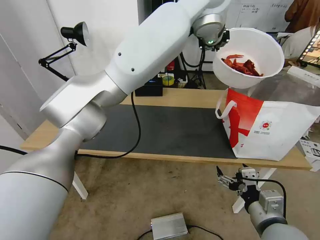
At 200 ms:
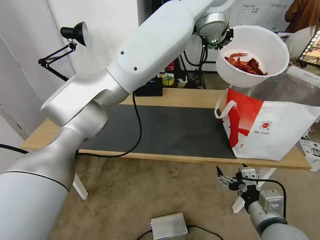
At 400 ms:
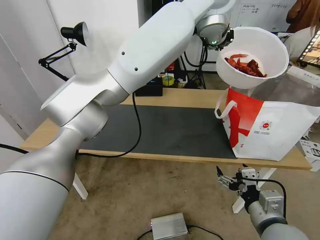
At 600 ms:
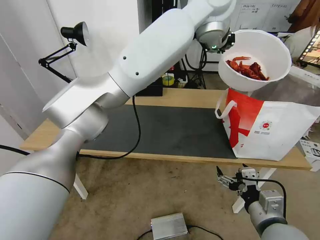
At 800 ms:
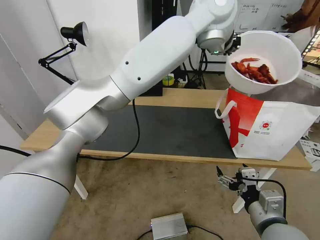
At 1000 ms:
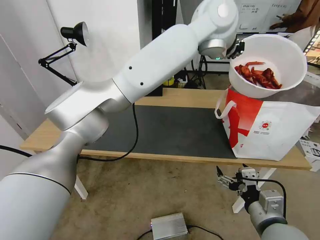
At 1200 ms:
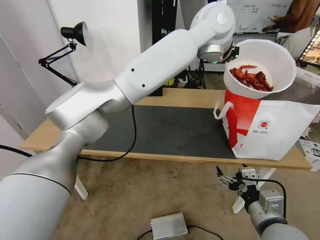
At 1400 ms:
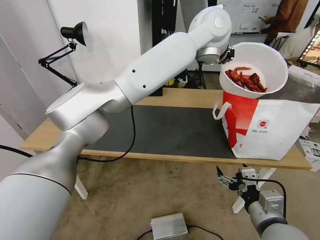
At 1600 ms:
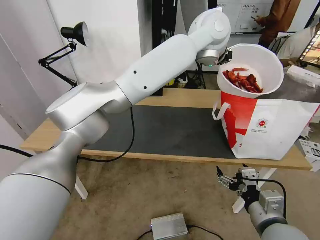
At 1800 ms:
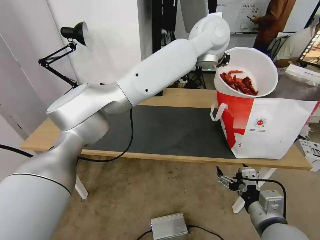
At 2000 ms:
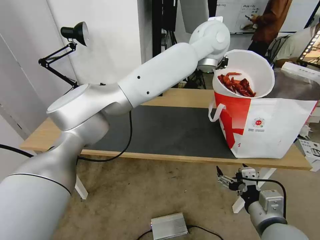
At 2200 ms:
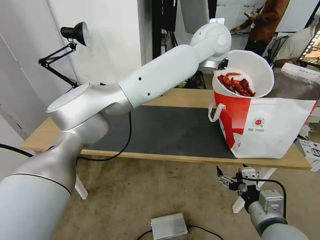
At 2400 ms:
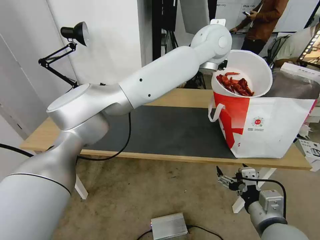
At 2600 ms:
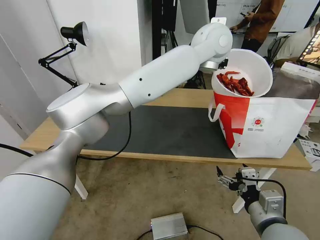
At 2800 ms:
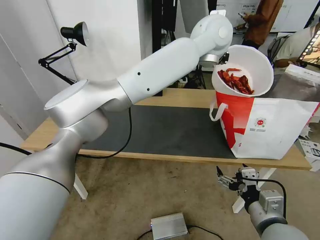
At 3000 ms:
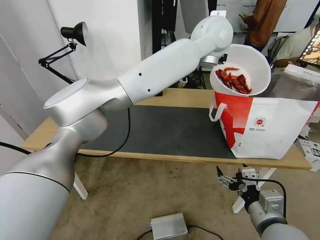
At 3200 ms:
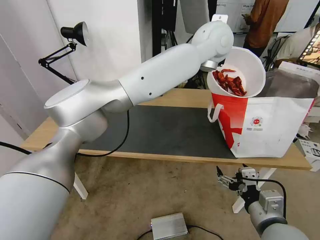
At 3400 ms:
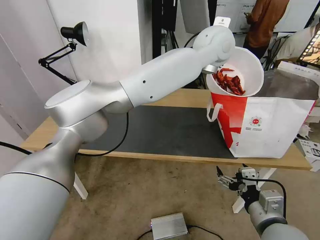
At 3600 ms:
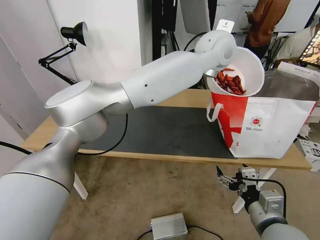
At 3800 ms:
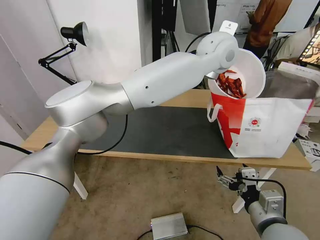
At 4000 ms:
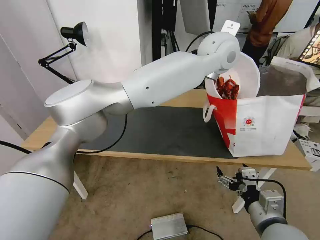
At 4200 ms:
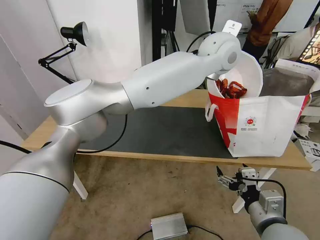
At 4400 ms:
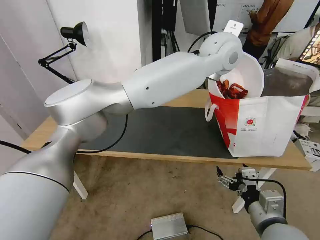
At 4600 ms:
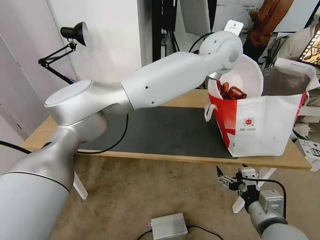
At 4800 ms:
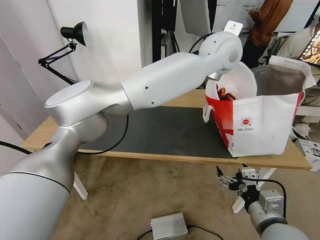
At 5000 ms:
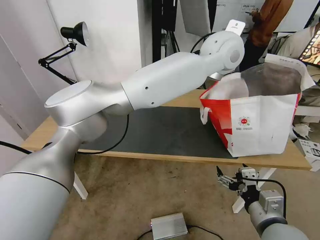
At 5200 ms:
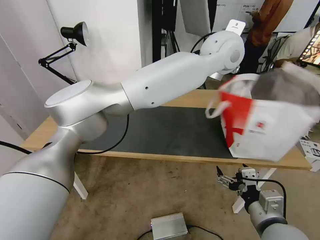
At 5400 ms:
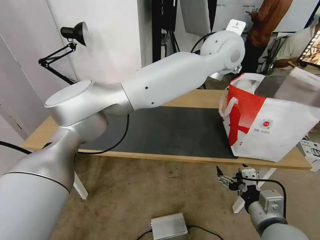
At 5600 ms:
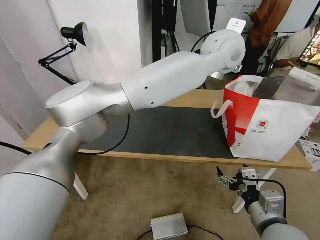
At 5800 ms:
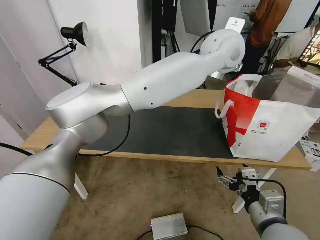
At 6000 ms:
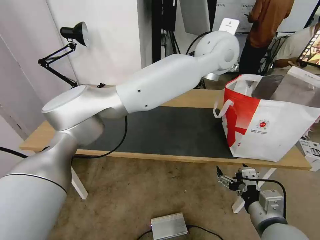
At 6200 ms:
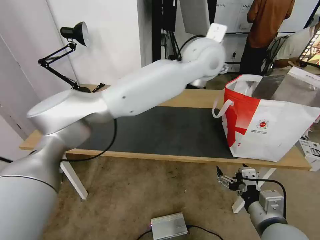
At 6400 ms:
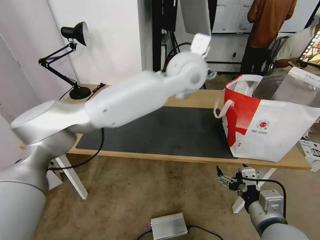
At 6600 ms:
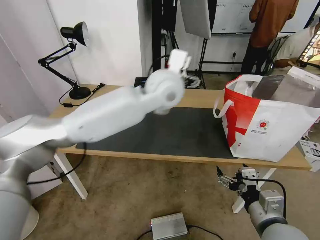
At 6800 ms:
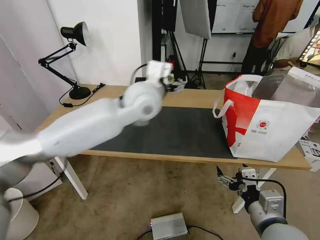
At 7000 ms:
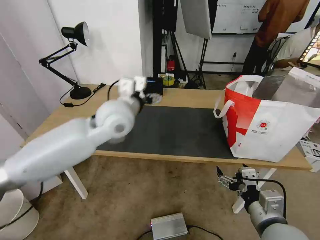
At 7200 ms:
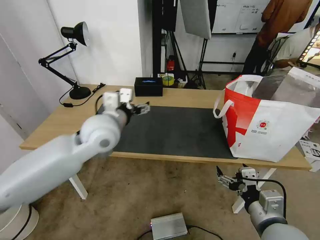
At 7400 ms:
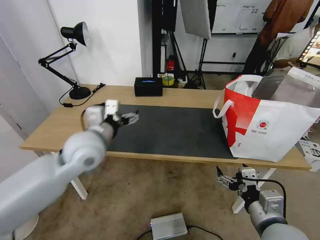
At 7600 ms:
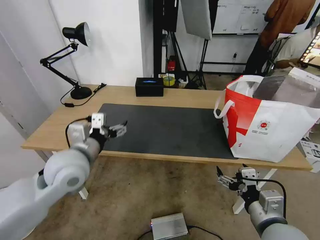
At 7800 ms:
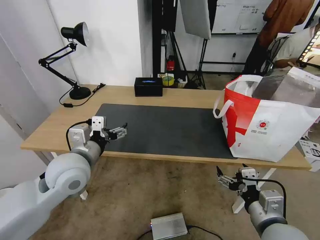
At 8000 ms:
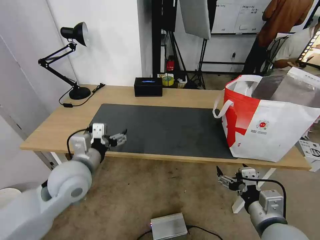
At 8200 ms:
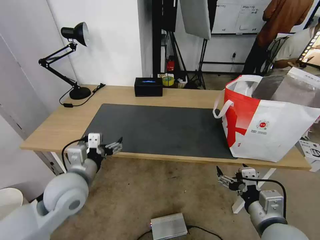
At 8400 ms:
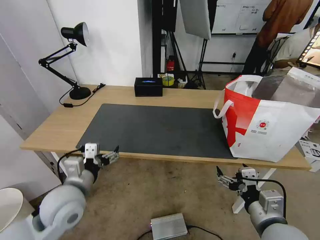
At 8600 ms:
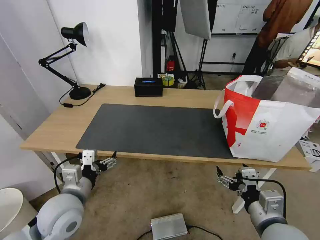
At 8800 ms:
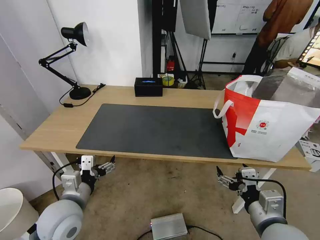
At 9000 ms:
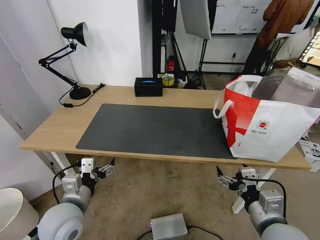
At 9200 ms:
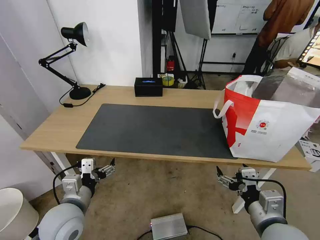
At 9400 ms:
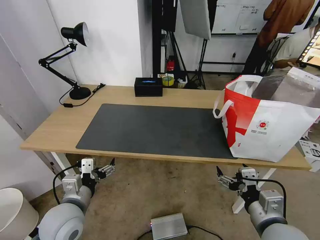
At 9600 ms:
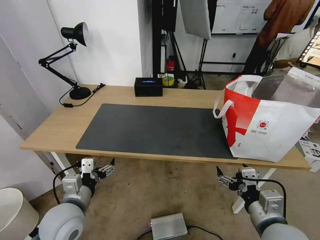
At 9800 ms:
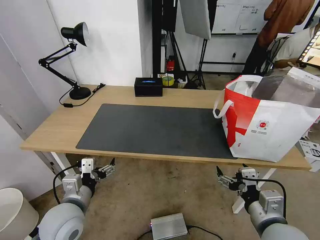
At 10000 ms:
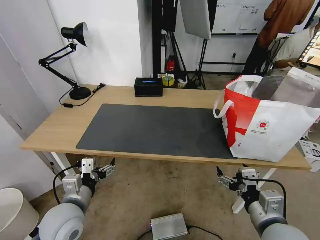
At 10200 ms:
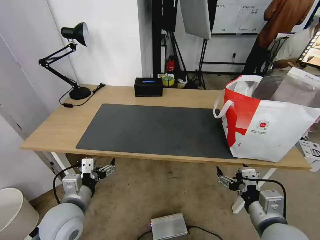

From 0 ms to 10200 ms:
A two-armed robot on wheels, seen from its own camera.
Task of the whole recording: Pick up the trash from the table and place it into the takeout bag.
From 0 ms to 1400 ms: The left gripper heads downward, covering about 5 cm.
From 1400 ms to 3000 ms: There are only small adjustments of the grippers.
From 3000 ms to 4400 ms: There are only small adjustments of the grippers.
From 4400 ms to 5800 ms: The left gripper opens.
From 5800 ms to 7200 ms: The left gripper moves to the left and downward, about 35 cm.
From 7200 ms to 8800 ms: The left gripper travels backward, downward and to the left by approximately 25 cm.
From 8800 ms to 10200 ms: The two grippers keep their place.

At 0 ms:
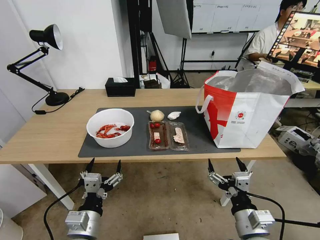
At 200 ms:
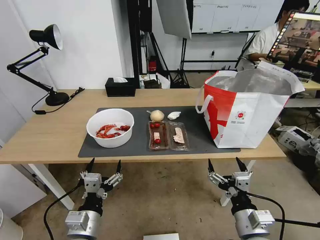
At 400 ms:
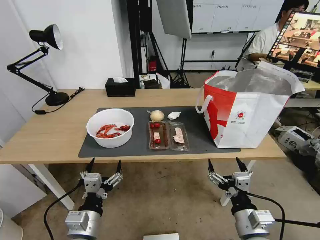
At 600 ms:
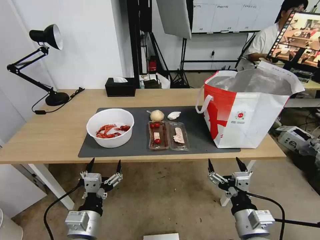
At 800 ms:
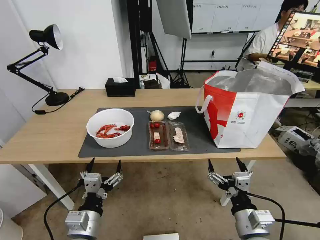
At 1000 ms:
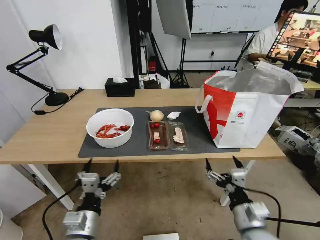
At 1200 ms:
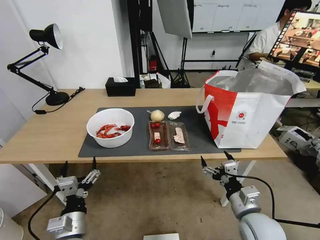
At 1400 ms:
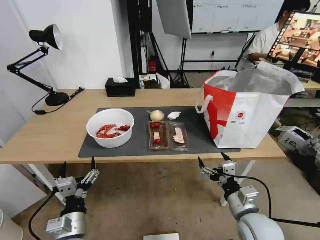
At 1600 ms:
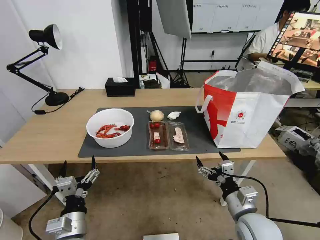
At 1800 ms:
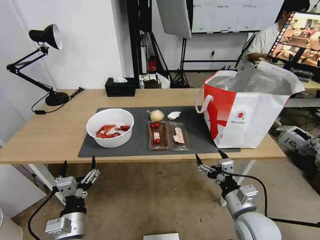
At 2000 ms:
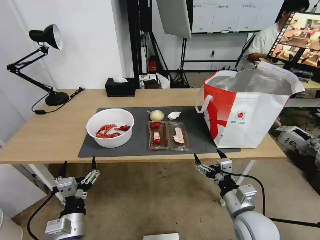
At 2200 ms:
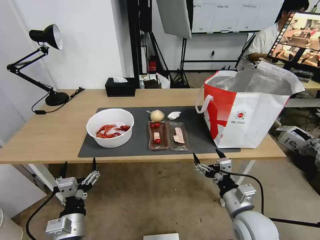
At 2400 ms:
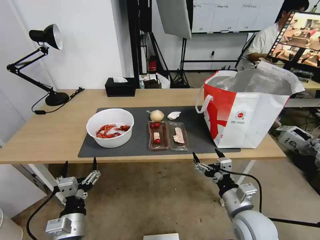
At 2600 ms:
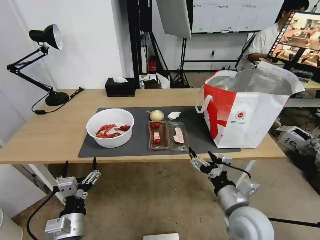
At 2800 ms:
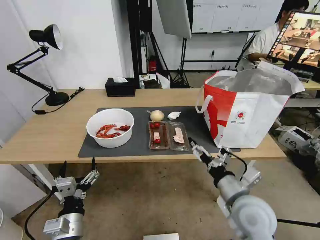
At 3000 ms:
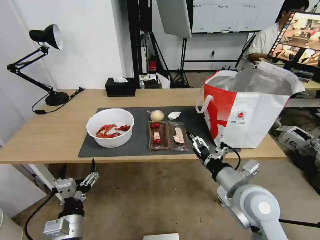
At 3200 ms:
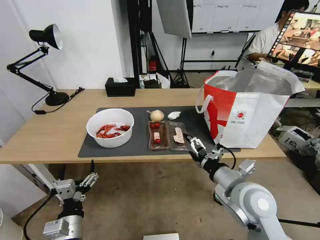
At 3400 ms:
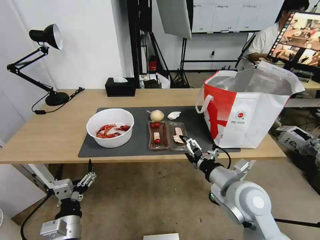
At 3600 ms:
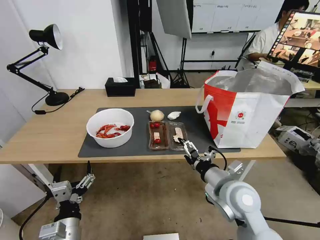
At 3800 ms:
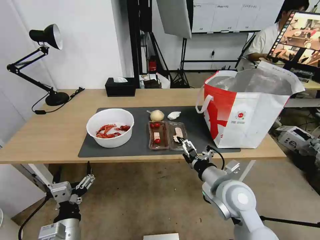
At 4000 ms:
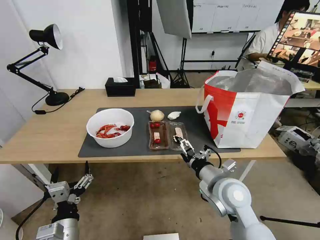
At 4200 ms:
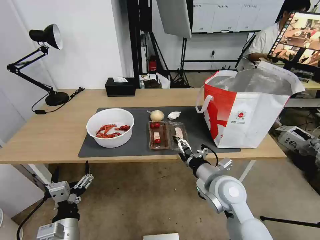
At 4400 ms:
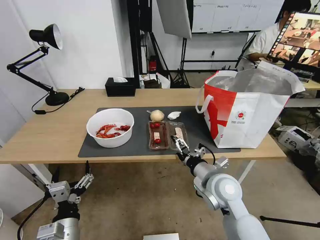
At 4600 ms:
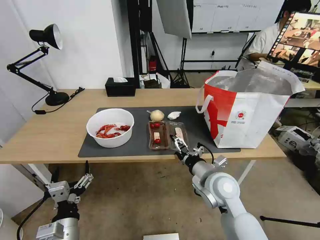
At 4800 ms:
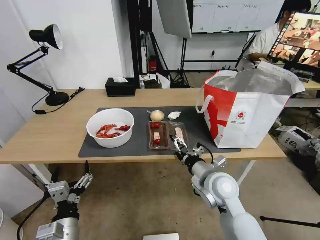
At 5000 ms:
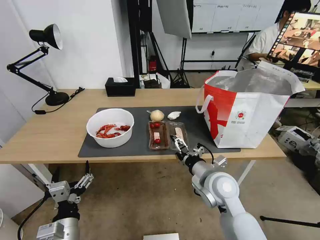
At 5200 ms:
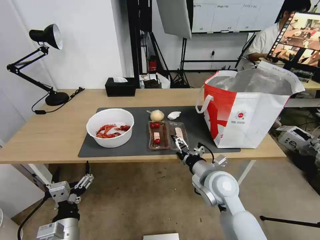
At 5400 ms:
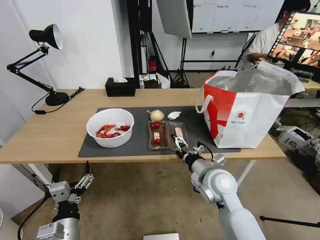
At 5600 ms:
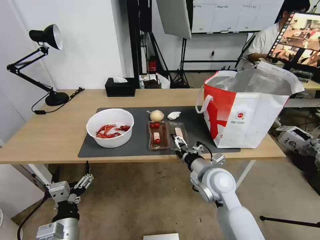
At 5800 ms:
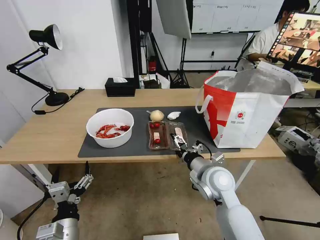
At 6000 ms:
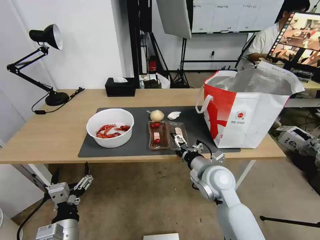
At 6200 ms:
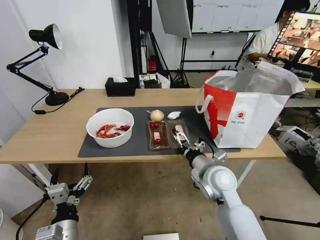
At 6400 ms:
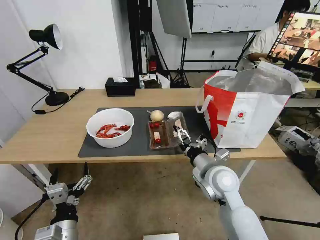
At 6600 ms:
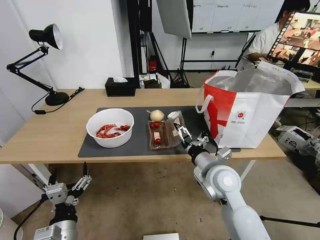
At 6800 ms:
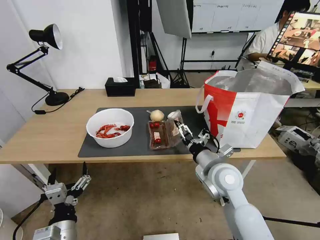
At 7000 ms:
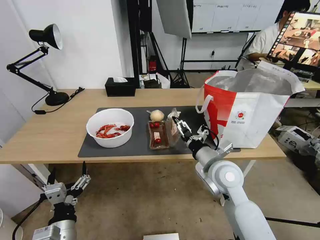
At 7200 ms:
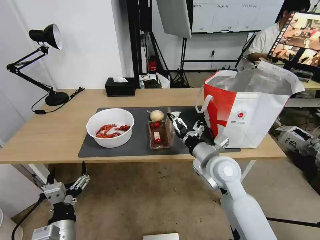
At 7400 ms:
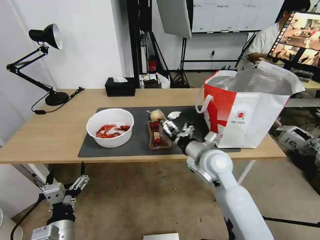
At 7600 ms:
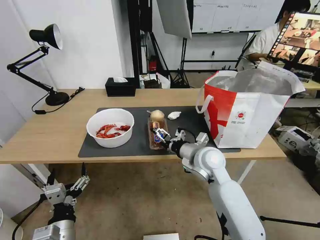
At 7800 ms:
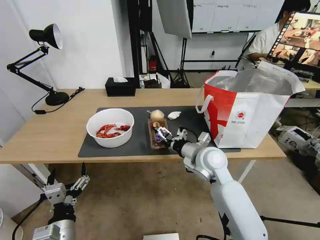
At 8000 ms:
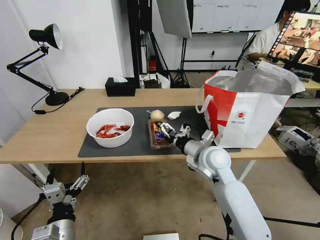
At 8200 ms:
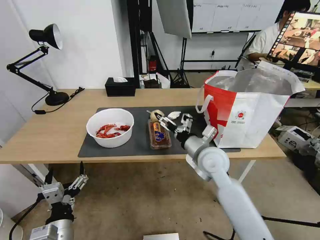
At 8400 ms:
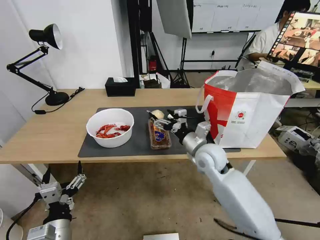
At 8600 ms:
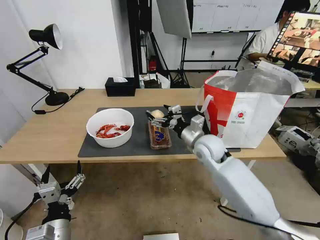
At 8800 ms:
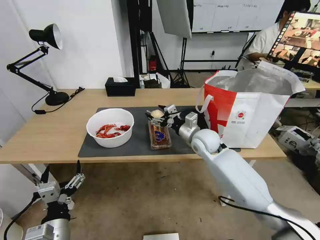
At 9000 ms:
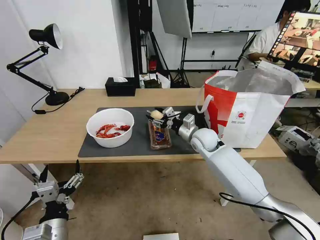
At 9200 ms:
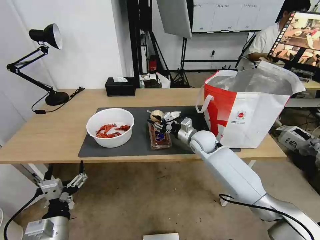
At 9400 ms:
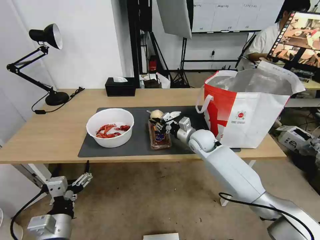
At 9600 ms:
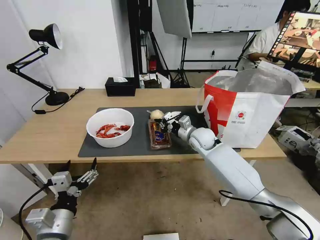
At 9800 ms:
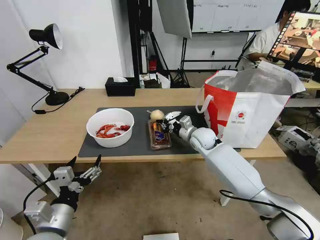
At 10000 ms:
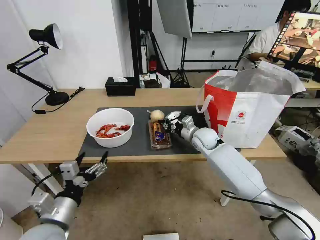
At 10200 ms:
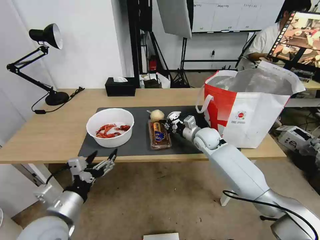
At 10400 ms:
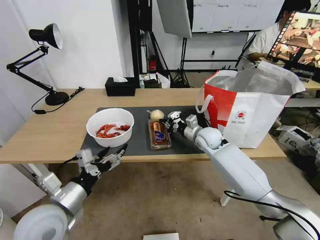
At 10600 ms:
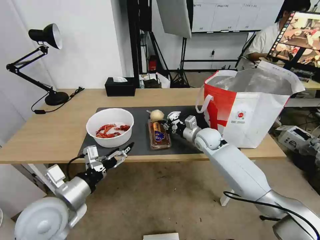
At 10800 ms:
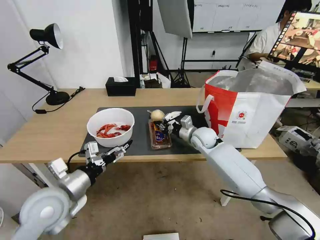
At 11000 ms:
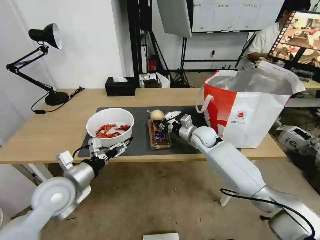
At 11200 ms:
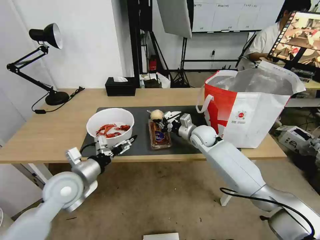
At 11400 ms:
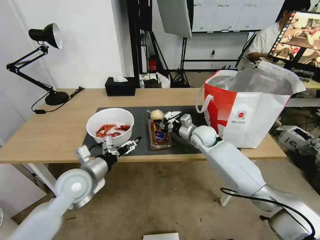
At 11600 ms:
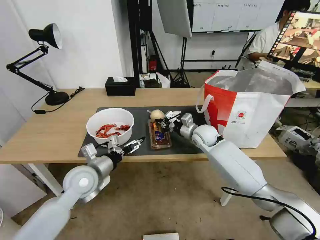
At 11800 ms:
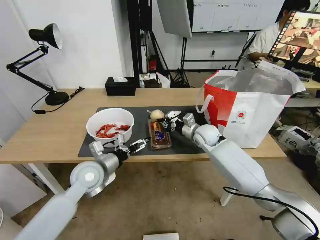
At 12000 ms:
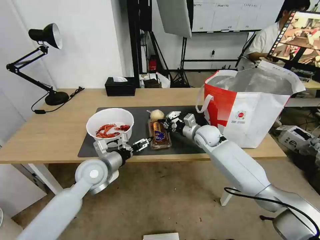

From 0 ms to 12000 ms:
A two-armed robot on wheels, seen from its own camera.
Task of the whole recording: Pick up the trash from the table and place it into the takeout bag.
From 1600 ms to 3000 ms: The right gripper is displaced upward by some 10 cm.
From 3000 ms to 4400 ms: The right gripper shifts approximately 5 cm forward.
From 4400 ms to 6000 ms: There are only small adjustments of the grippers.
From 6000 ms to 7600 ms: The right gripper travels forward by approximately 5 cm.
From 7600 ms to 9000 ms: The right gripper is displaced forward by some 10 cm, and closes.
From 9000 ms to 10400 ms: The right gripper closes, while the left gripper shifts some 10 cm upward and forward.
From 10400 ms to 12000 ms: The left gripper heads forward, covering some 15 cm.
